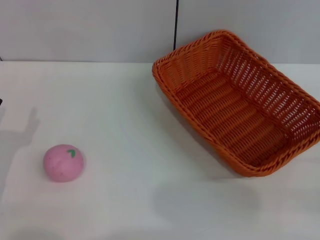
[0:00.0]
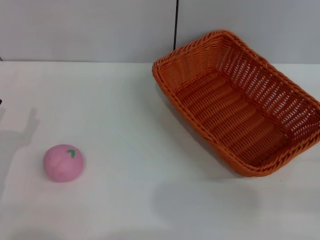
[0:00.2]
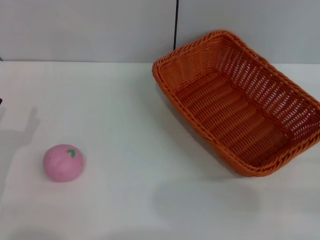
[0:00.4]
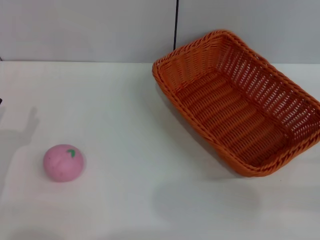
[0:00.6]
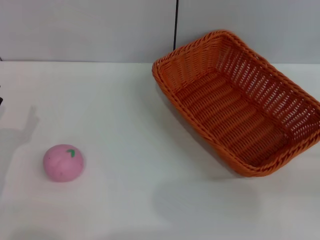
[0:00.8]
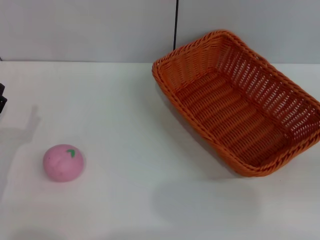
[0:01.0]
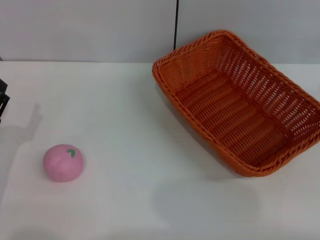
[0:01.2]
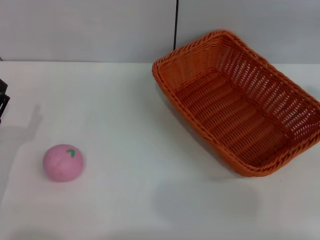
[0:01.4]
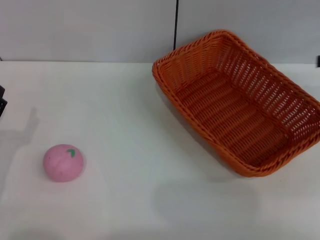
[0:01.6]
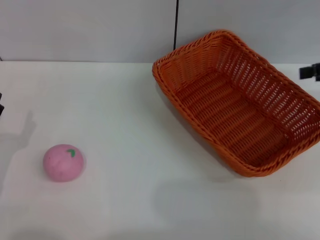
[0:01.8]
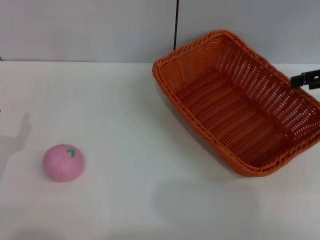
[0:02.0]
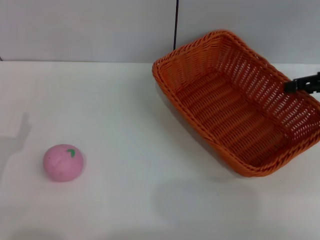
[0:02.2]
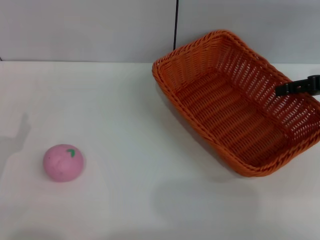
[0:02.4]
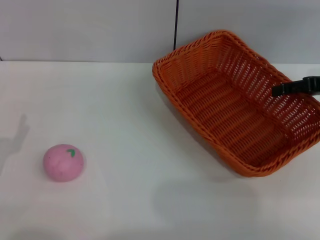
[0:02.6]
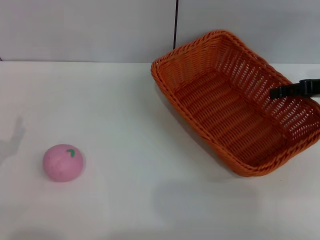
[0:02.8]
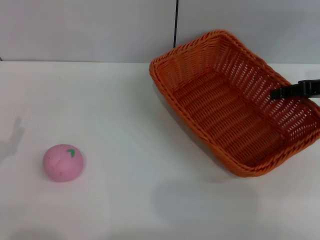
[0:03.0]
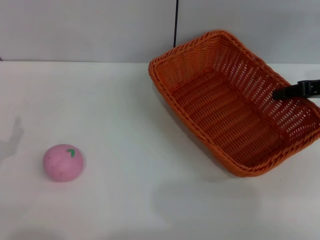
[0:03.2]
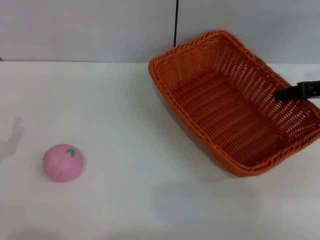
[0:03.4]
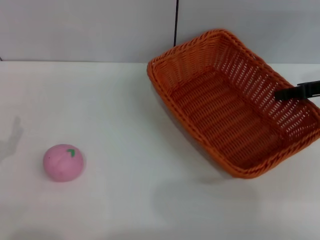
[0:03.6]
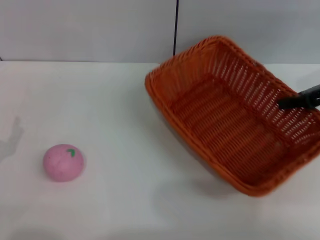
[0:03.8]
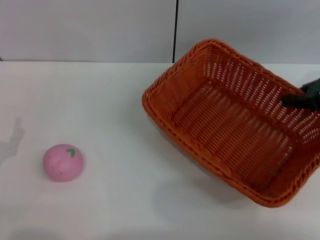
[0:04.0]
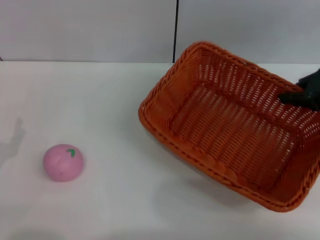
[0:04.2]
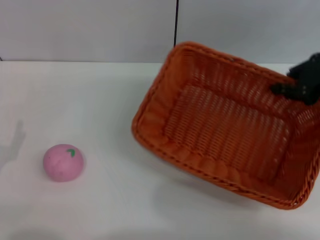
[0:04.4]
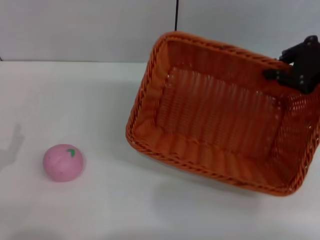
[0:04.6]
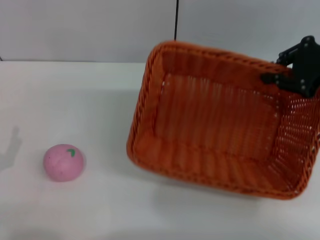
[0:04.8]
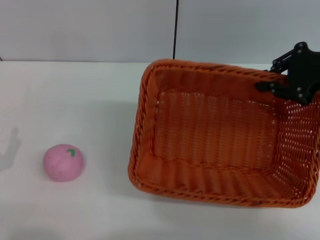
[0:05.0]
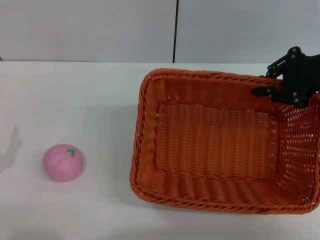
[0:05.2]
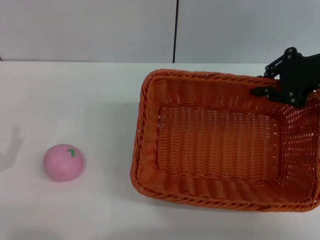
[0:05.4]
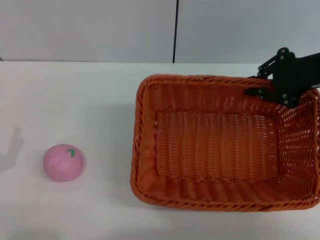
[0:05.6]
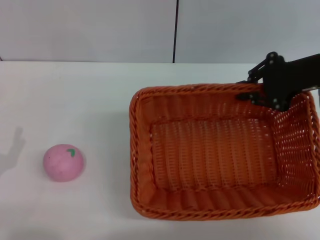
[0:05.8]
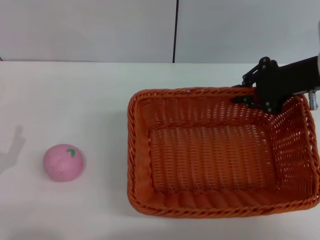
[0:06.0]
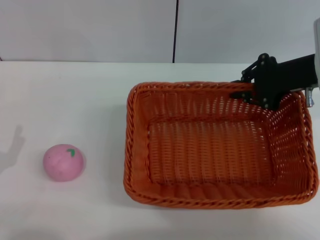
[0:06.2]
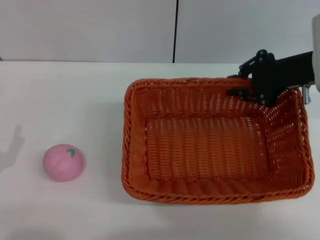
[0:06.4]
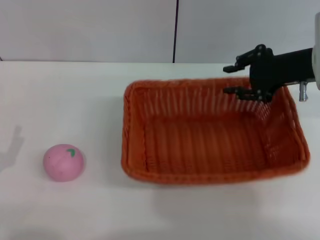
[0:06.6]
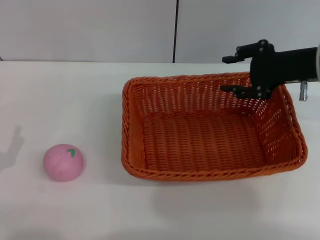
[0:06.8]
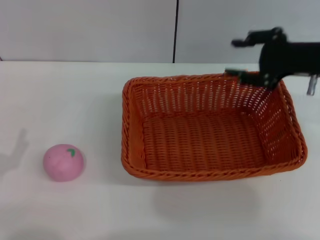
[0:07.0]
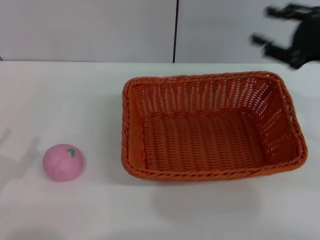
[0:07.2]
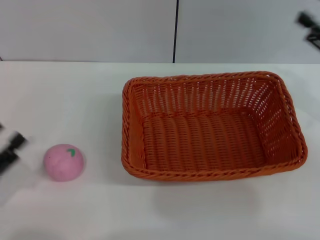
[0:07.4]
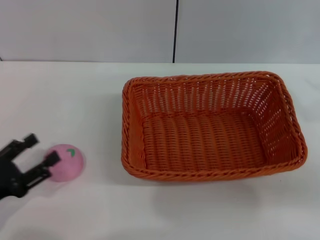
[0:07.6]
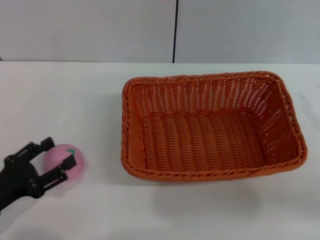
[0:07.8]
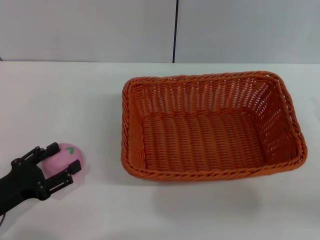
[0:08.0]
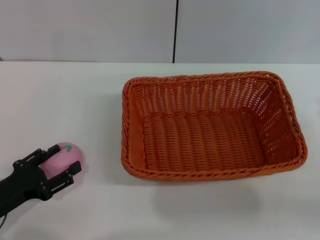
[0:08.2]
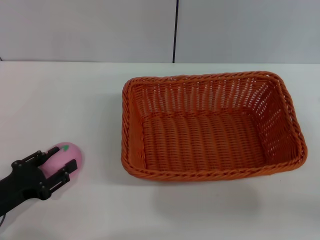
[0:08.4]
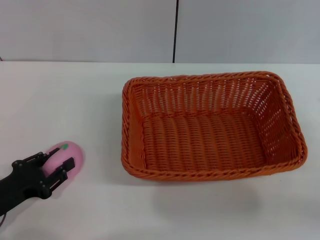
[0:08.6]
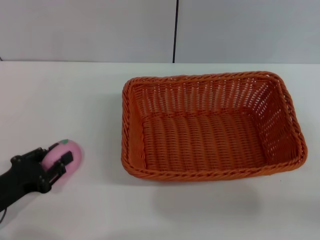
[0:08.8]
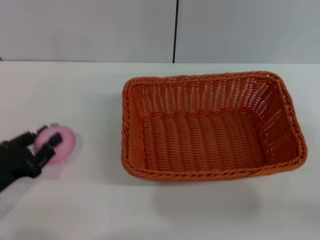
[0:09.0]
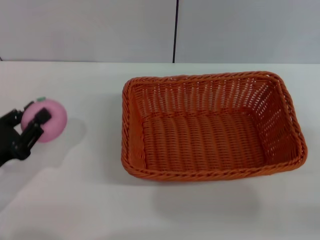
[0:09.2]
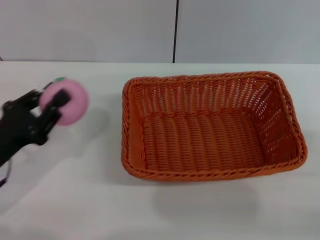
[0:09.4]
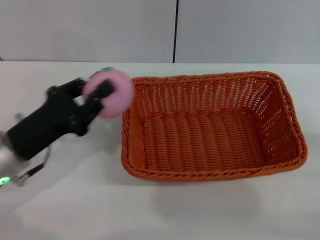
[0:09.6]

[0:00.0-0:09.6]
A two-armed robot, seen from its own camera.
Step, 0:00.0 to 0:03.8: Pick up the light basket with the right gripper.
Step, 0:04.0 to 0:07.0: Place the light basket in the center of view with the right gripper.
Step, 0:07.2 to 0:09.0: Pick up the peach with the left gripper.
0:01.6 to 0:03.2: The right gripper moves downward and to the left, approximately 10 cm.
0:03.2 to 0:04.8: The right gripper goes about 5 cm upward, and closes its fingers.
0:04.8 to 0:06.4: The right gripper shifts about 5 cm to the left.
0:06.4 to 0:08.0: The right gripper goes approximately 20 cm backward, to the right and downward, and opens.
0:08.0 to 0:09.6: The left gripper shifts about 5 cm forward, and closes its fingers.

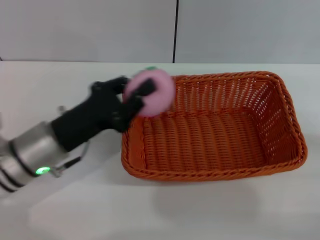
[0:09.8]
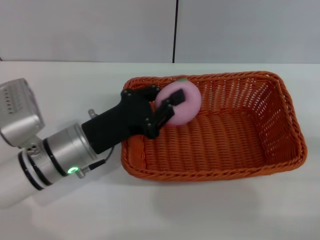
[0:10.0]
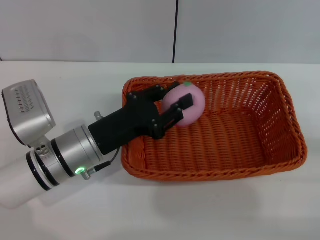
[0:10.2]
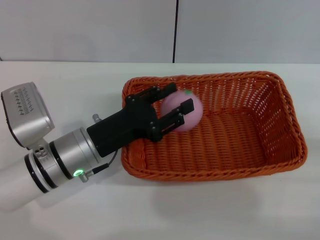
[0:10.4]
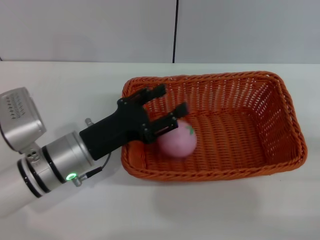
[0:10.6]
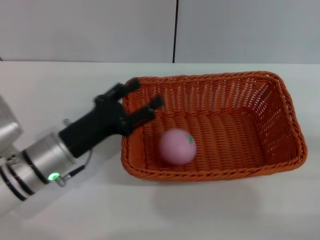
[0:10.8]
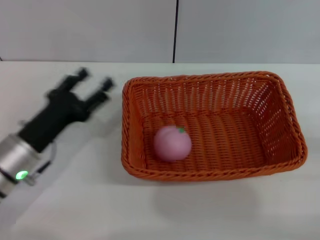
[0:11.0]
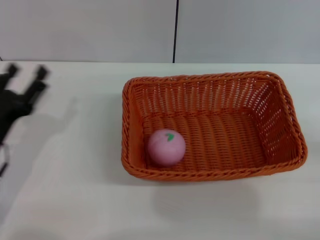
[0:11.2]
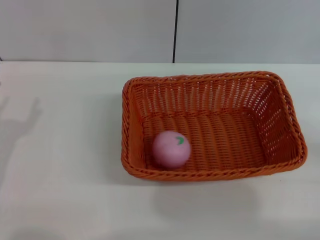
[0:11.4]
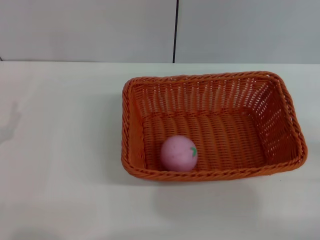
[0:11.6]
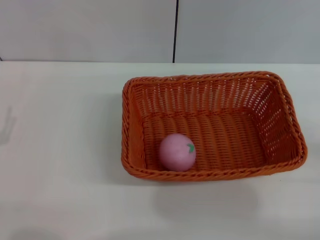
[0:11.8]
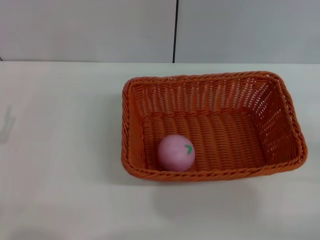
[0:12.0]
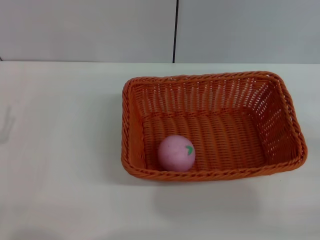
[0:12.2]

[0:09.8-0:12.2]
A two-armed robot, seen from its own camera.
Step, 0:09.8 to 0:10.8: Place the peach into the basket with the left gripper.
0:09.8 to 0:11.0: The left gripper opens.
0:11.0 to 0:12.2: The left gripper goes approximately 10 cm to the left and backward.

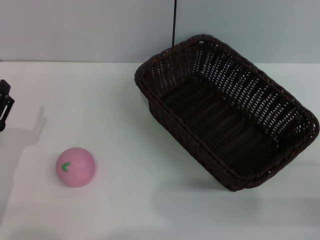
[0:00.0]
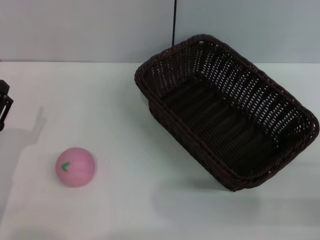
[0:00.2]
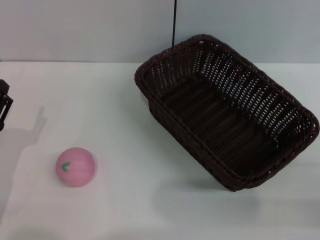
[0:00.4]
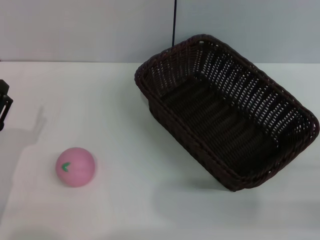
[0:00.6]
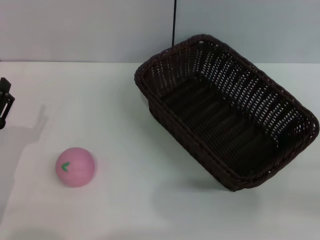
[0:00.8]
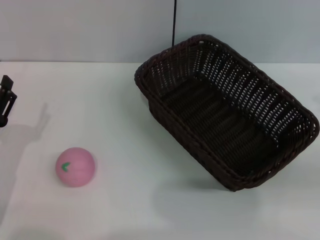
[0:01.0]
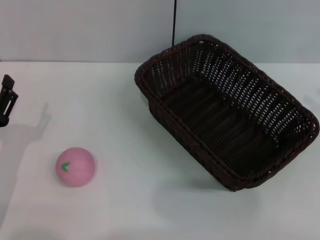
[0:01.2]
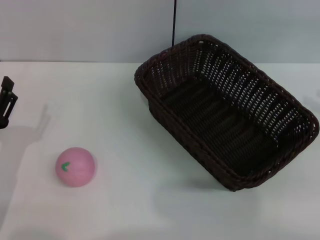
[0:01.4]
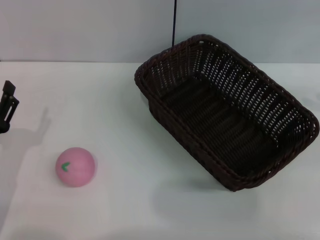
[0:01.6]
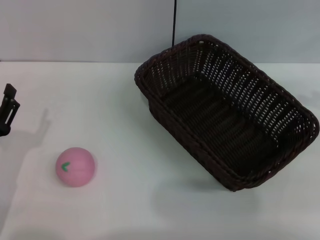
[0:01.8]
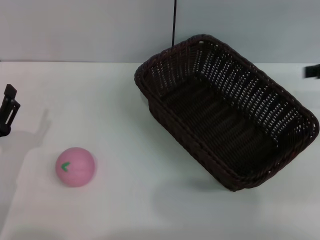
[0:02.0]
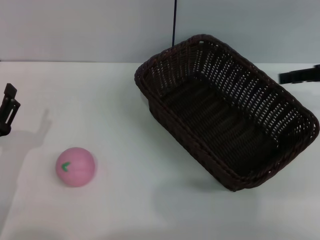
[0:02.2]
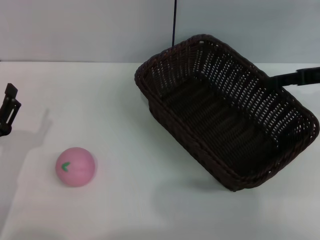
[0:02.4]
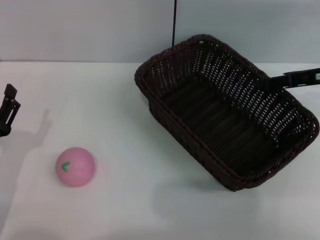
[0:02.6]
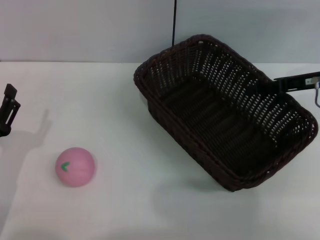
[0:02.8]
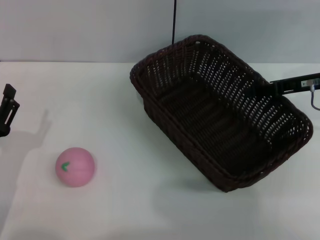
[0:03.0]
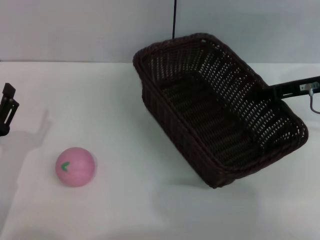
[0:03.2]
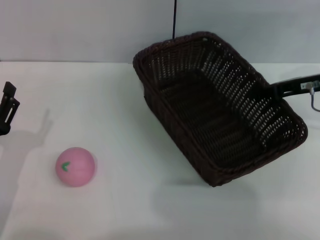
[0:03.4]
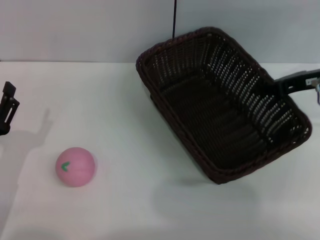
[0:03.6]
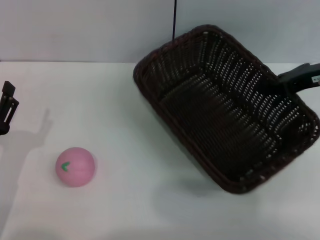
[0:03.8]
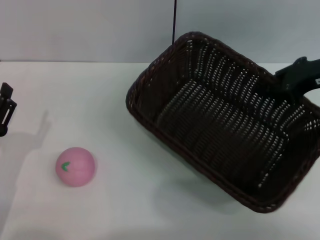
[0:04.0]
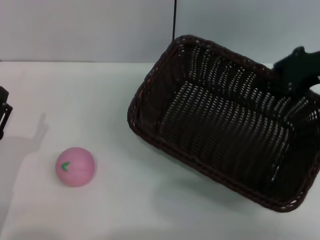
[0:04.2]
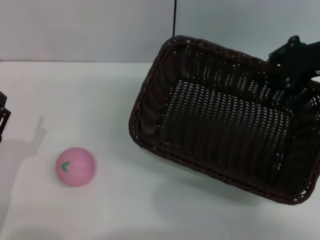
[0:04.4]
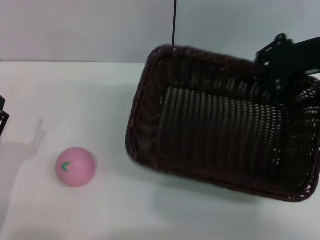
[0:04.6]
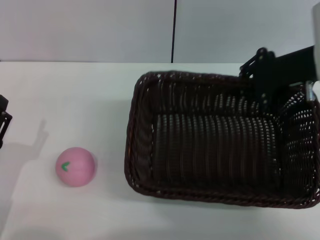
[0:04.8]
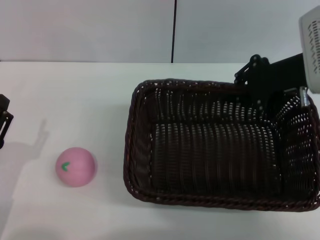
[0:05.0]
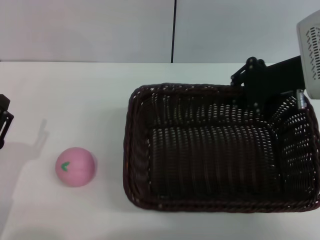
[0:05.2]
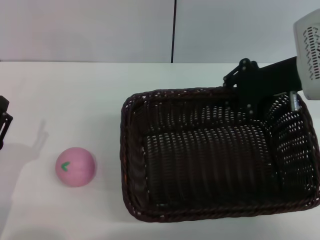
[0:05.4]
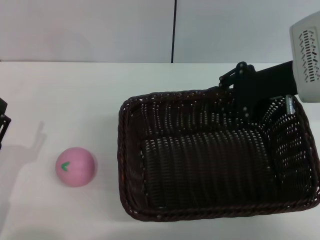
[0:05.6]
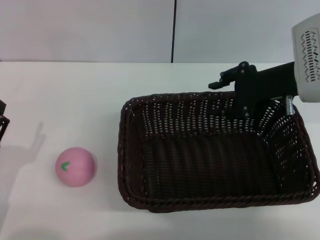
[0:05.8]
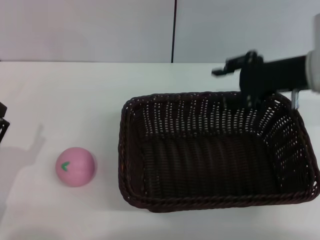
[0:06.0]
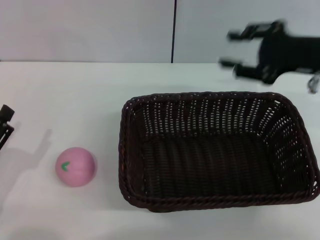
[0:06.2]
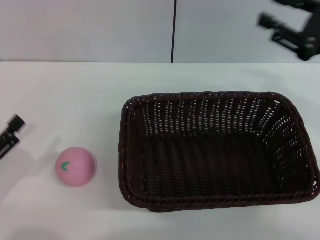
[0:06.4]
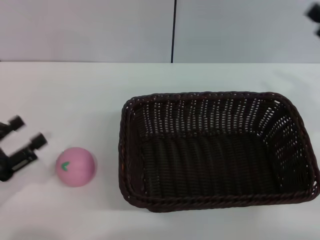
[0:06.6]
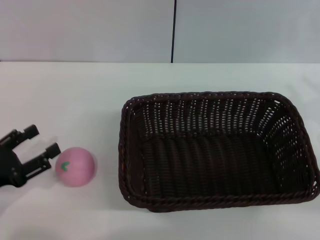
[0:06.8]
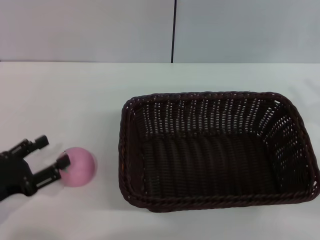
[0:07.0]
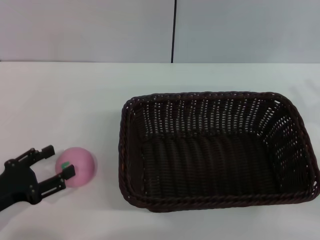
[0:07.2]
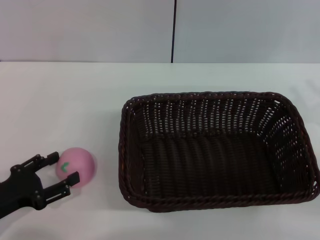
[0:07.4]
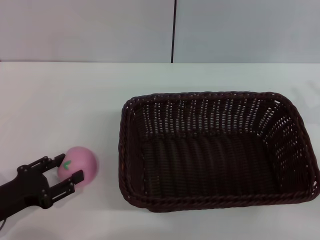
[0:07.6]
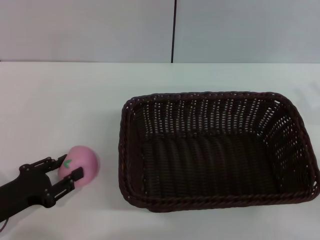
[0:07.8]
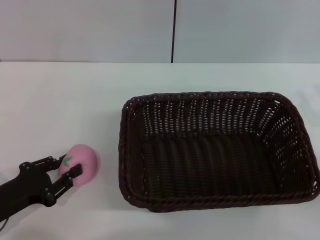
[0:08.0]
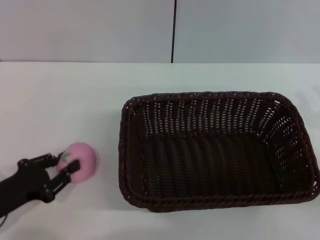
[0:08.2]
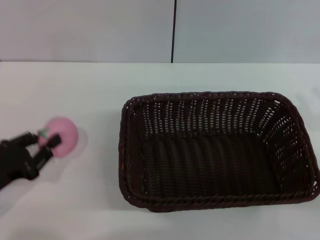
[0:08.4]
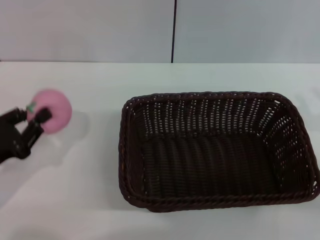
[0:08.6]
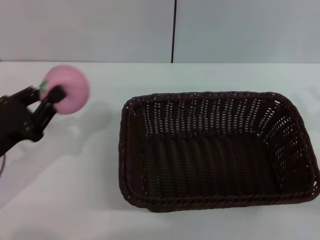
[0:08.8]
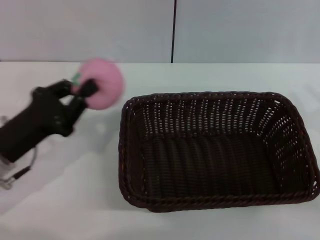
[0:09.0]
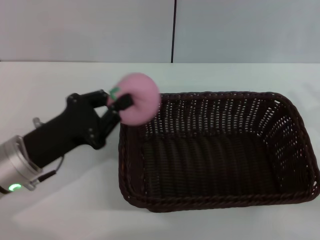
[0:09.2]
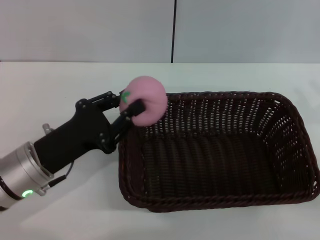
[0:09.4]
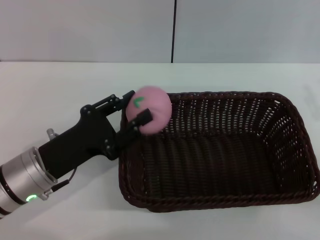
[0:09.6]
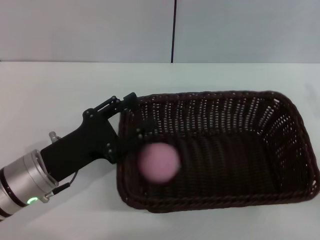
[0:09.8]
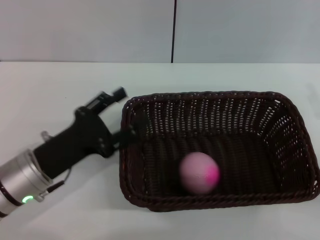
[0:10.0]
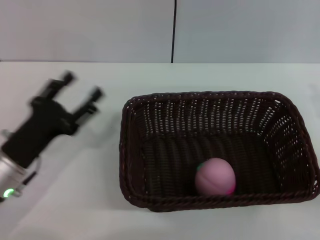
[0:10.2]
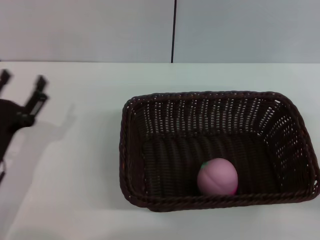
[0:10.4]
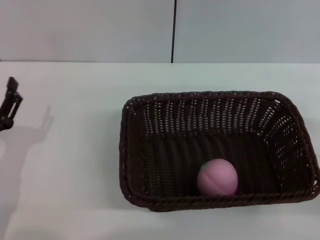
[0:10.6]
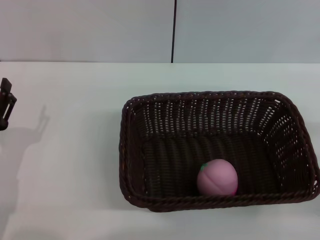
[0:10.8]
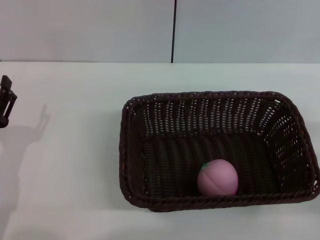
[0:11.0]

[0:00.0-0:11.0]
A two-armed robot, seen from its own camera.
Step, 0:00.0 to 0:03.6: Pick up the dark basket with the right gripper.
Step, 0:03.8 to 0:05.8: Place the dark basket in the center of view with the right gripper.
Step, 0:06.0 to 0:08.4: Pick up the peach with the left gripper.
Step, 0:08.8 to 0:09.8: Place the peach into the basket with the left gripper.
0:00.0 to 0:01.6: The right gripper goes roughly 20 cm upward, forward and to the right.
0:01.6 to 0:03.2: The right gripper moves to the left, downward and forward, about 20 cm.
0:03.2 to 0:04.8: The right gripper shifts some 5 cm upward, and closes up.
0:04.8 to 0:06.2: The right gripper opens up.
0:06.2 to 0:07.8: The right gripper is displaced downward, backward and to the right by some 15 cm.
0:07.8 to 0:09.4: The left gripper heads to the right and forward, covering approximately 10 cm, and closes up.
0:09.4 to 0:11.0: The left gripper moves to the left, about 5 cm, and opens.
